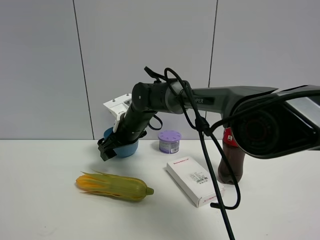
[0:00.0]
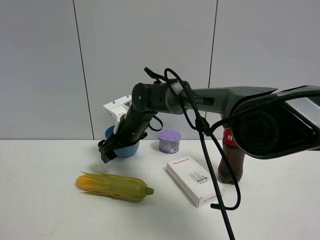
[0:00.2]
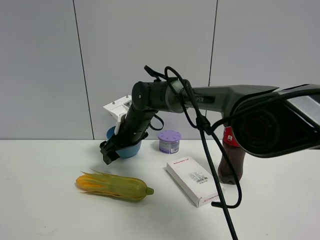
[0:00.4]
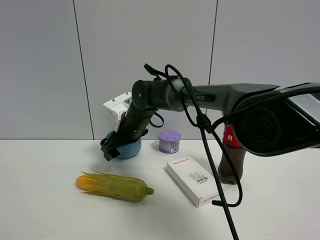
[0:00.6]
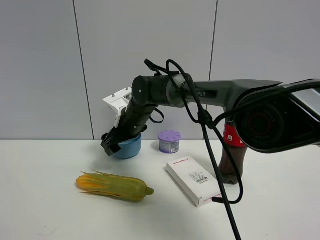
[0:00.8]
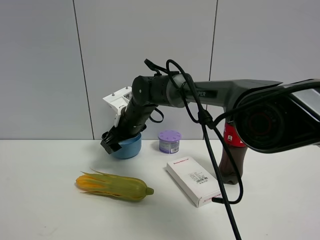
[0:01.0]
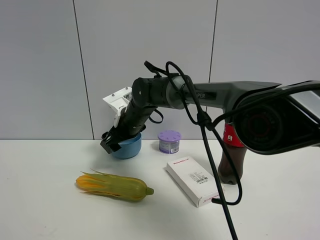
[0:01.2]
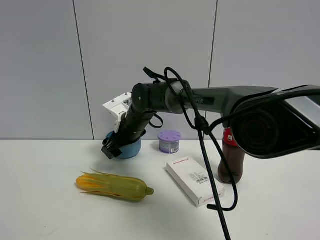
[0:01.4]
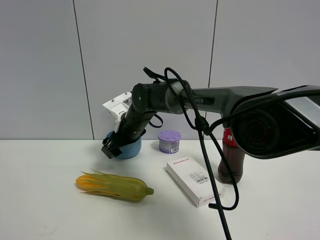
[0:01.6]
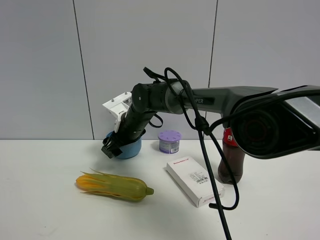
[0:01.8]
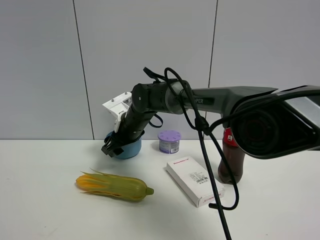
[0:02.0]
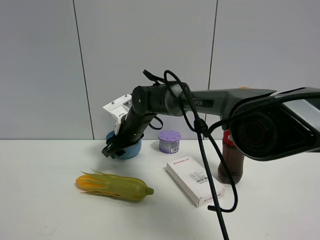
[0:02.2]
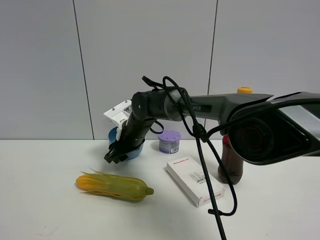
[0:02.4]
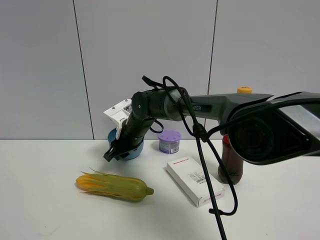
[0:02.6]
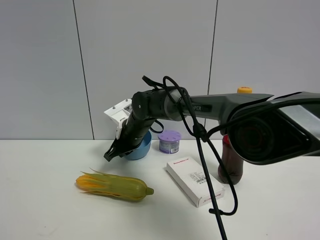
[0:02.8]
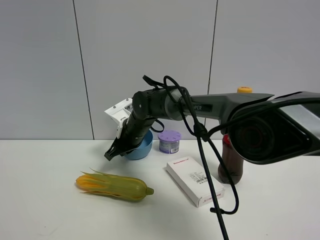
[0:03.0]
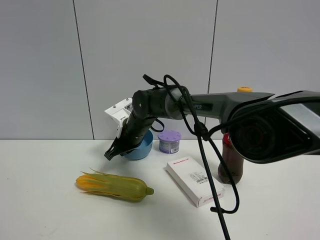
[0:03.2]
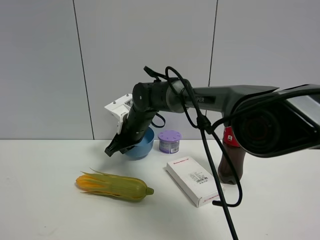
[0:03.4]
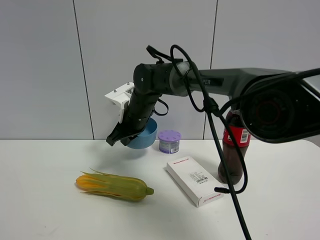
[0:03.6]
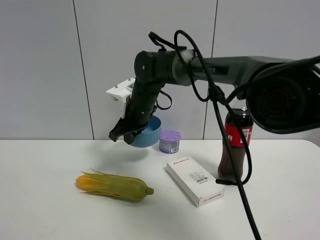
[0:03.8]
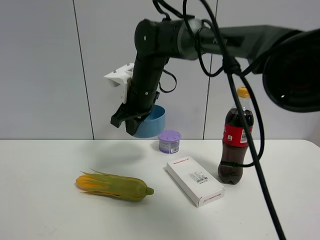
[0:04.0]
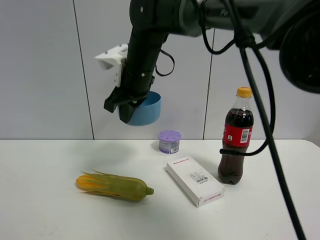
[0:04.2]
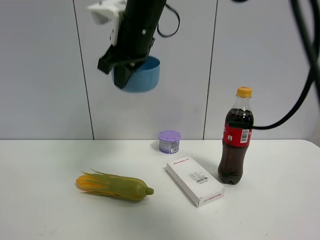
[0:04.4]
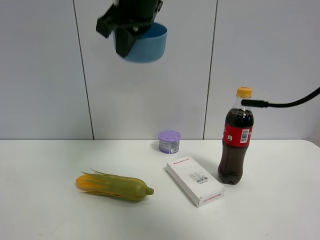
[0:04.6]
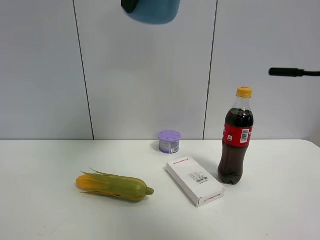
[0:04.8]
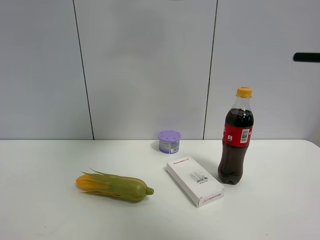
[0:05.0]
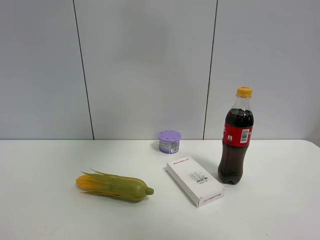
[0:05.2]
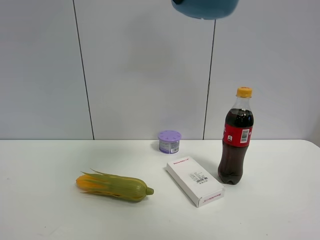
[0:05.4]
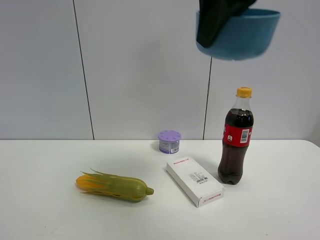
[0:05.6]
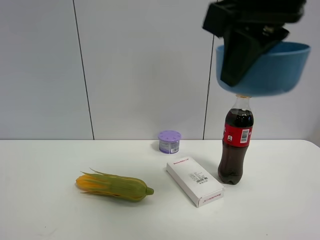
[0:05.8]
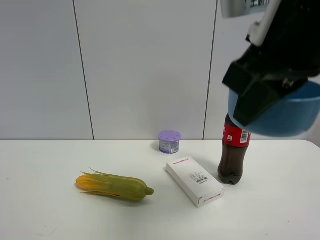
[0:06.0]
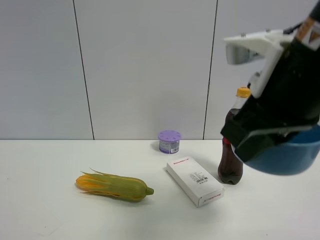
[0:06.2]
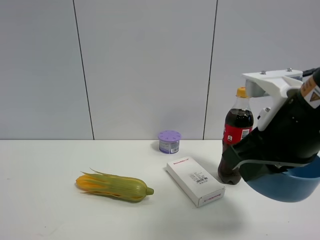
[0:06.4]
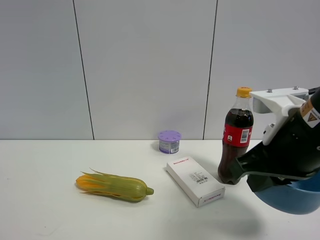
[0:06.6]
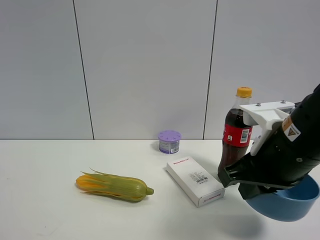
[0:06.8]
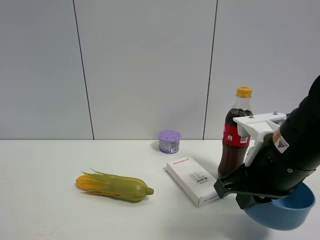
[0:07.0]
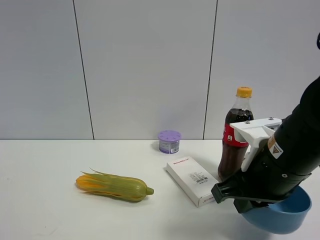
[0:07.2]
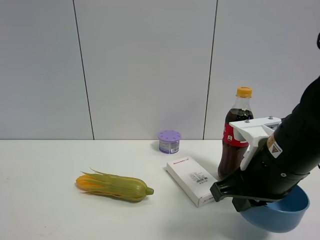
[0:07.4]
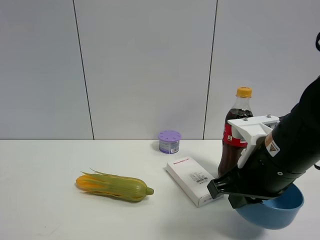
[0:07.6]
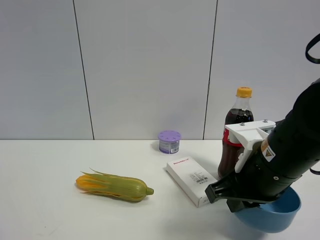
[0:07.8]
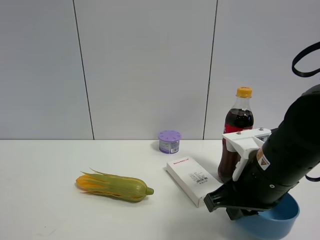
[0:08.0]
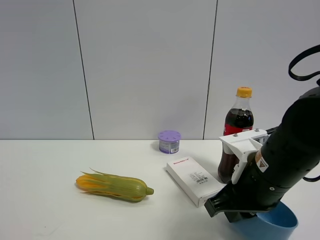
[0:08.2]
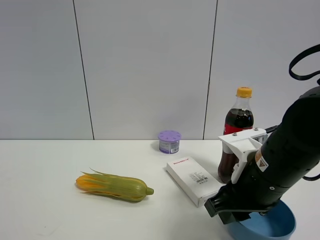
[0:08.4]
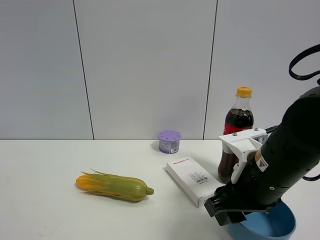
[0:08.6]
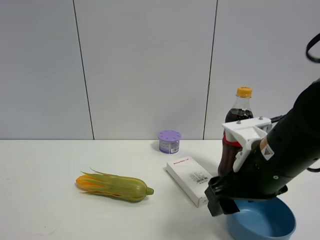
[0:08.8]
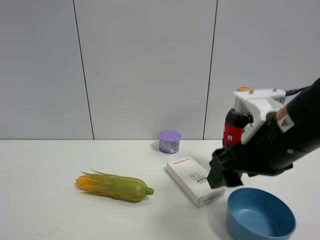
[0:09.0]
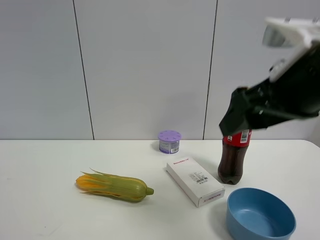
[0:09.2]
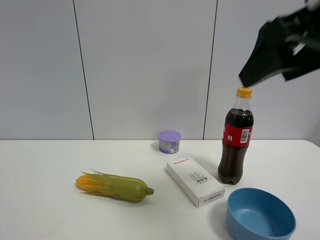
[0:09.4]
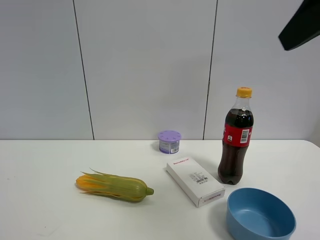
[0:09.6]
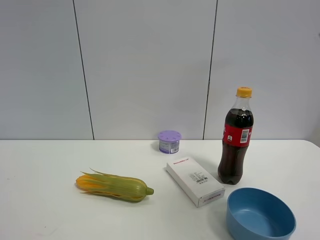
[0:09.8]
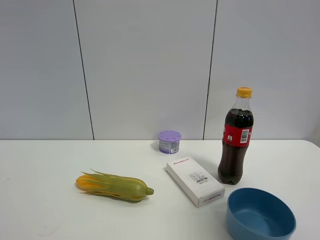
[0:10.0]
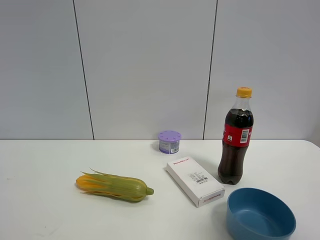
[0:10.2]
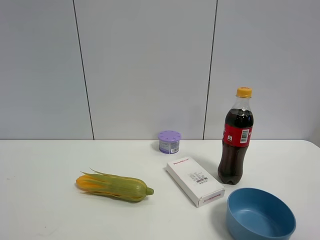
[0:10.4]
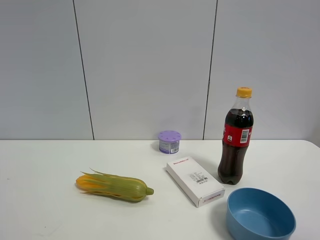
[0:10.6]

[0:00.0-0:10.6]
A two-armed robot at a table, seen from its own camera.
Task of the whole recording: the gripper move the object.
Step, 0:02.0 to 0:09.0: Place the blue bowl on the table with the right gripper.
0:00.0 to 0:01.6: The grippers move only a little.
0:01.6 to 0:03.0: The right gripper closes its fingers.
0:03.0 to 0:04.6: The right gripper heads upward and backward, covering about 30 cm.
0:04.6 to 0:06.0: The right gripper travels backward, to the right and downward by roughly 25 cm.
0:06.0 to 0:07.6: The right gripper shifts about 15 cm downward.
0:07.6 to 0:09.0: The right gripper heads upward, covering about 5 cm, and opens.
0:09.0 to 0:10.6: The right gripper shifts some 25 cm backward and to the right.

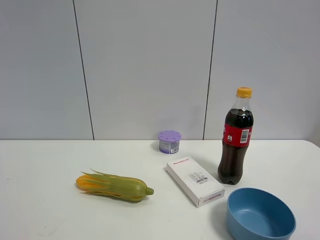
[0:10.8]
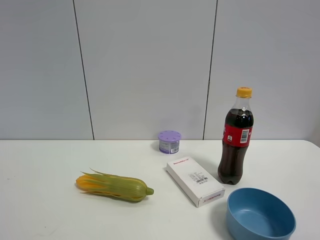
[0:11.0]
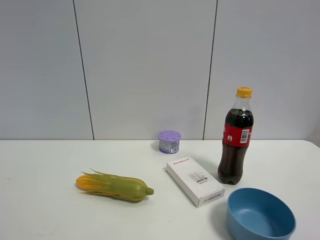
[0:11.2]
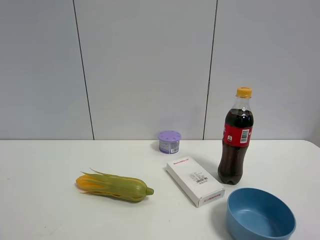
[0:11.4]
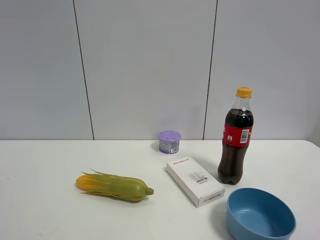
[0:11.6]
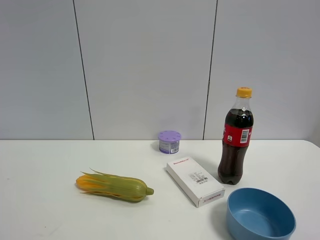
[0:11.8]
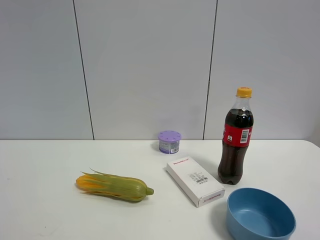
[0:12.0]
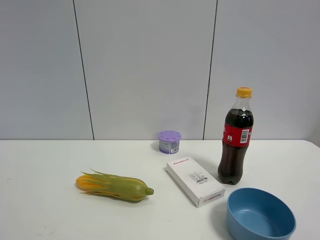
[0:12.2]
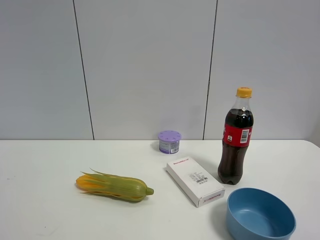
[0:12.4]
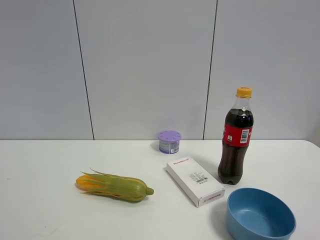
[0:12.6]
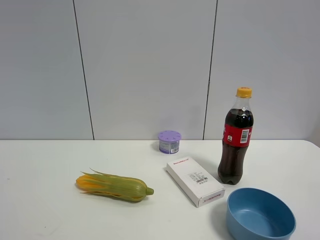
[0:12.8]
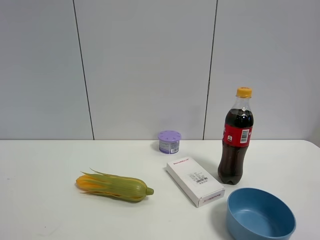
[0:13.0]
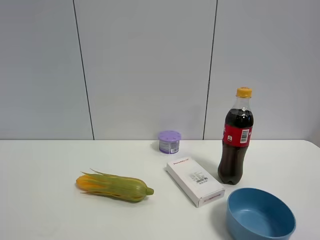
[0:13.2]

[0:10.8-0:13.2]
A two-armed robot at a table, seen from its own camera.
Task of the whole recording: the gripper move the object.
0:12.0 to 0:13.2: Neither gripper changes place.

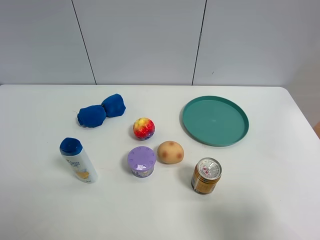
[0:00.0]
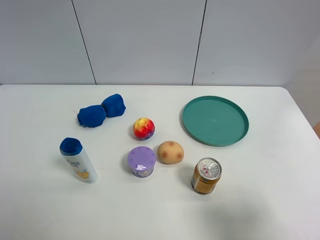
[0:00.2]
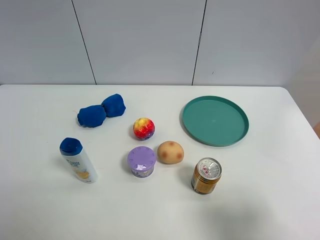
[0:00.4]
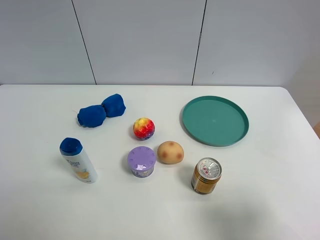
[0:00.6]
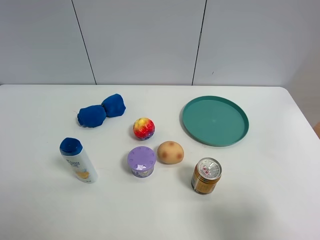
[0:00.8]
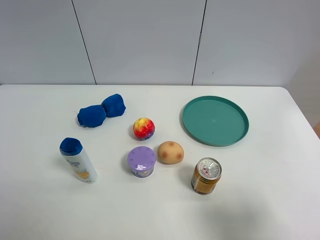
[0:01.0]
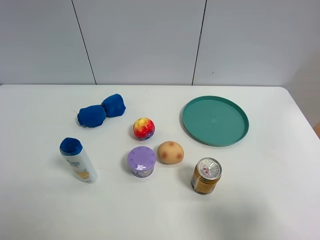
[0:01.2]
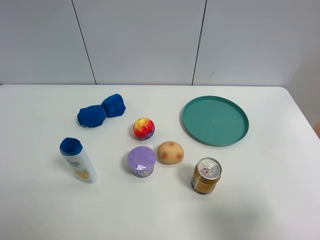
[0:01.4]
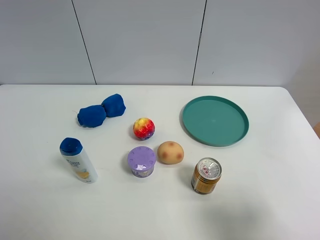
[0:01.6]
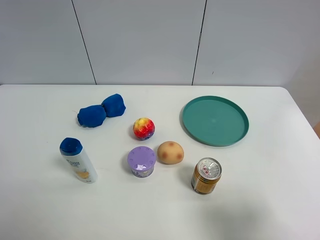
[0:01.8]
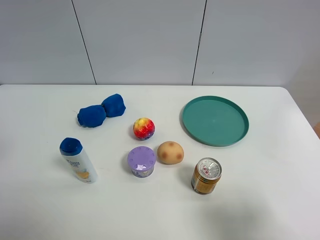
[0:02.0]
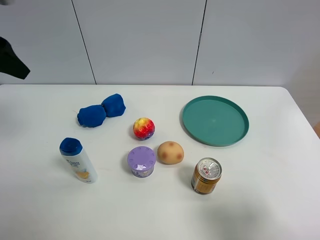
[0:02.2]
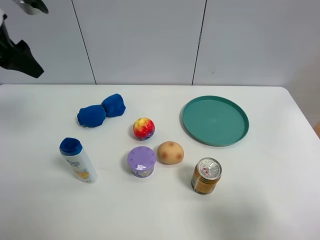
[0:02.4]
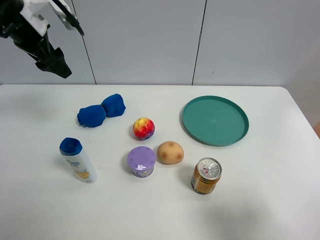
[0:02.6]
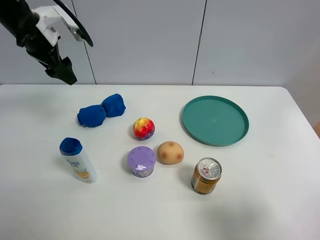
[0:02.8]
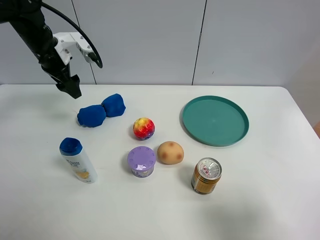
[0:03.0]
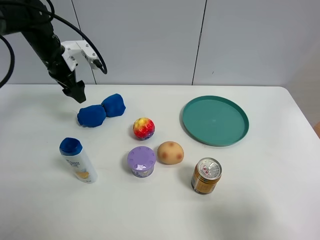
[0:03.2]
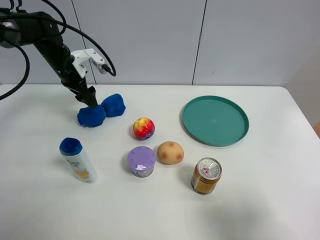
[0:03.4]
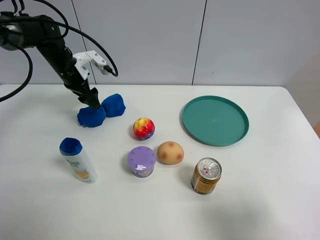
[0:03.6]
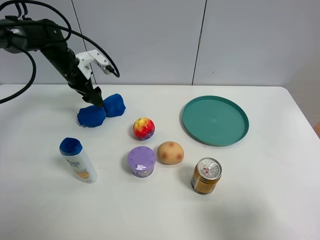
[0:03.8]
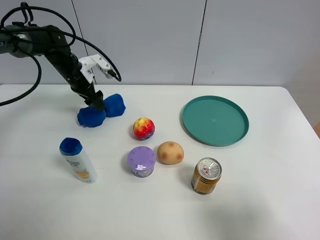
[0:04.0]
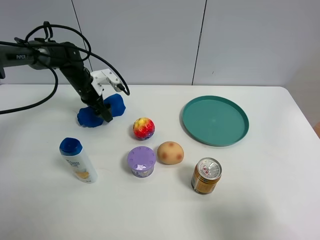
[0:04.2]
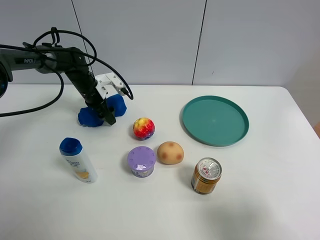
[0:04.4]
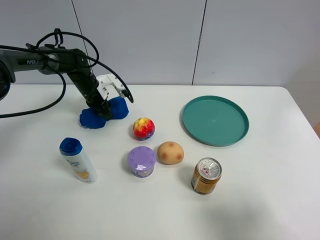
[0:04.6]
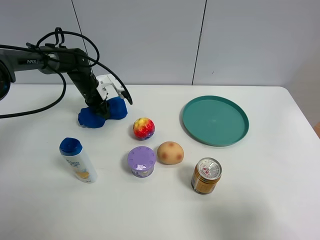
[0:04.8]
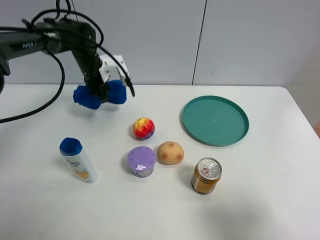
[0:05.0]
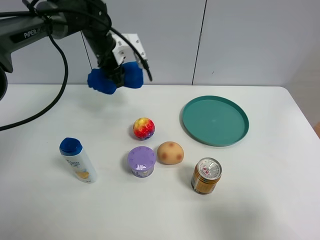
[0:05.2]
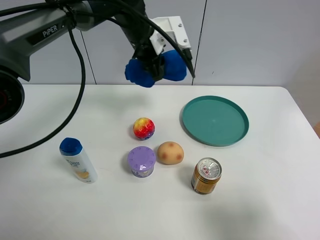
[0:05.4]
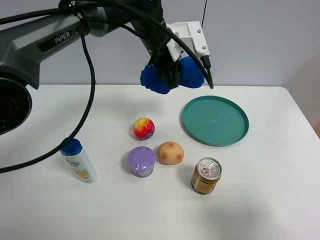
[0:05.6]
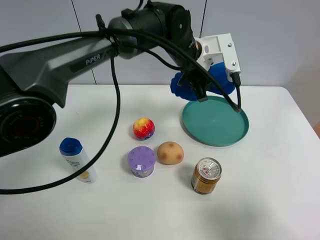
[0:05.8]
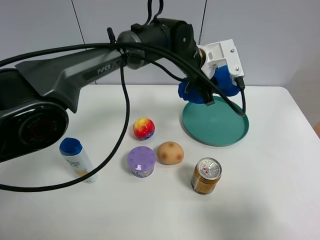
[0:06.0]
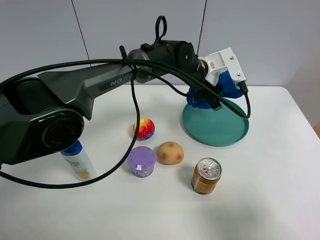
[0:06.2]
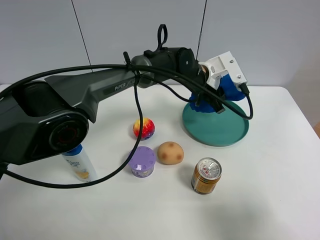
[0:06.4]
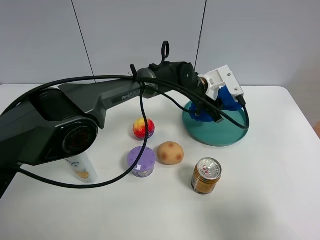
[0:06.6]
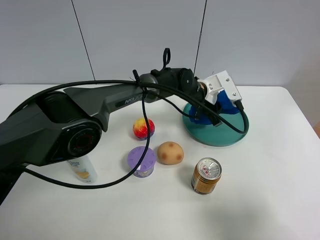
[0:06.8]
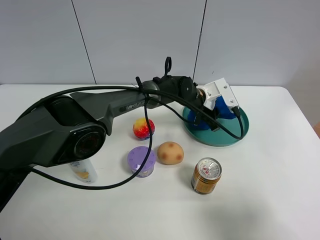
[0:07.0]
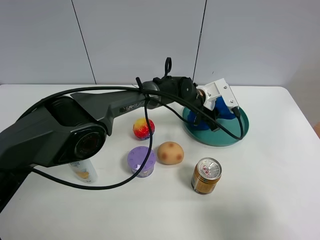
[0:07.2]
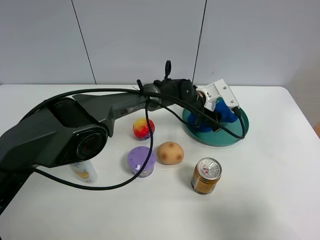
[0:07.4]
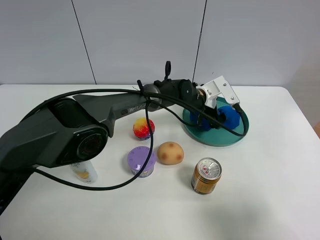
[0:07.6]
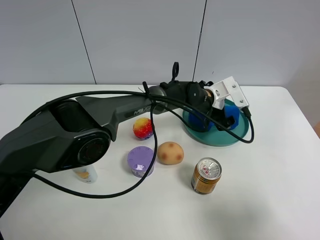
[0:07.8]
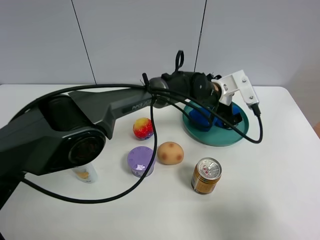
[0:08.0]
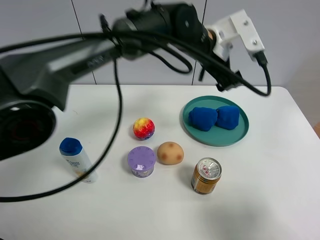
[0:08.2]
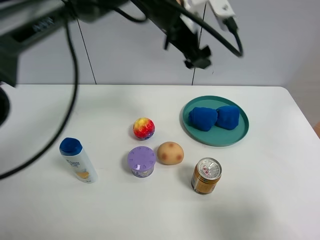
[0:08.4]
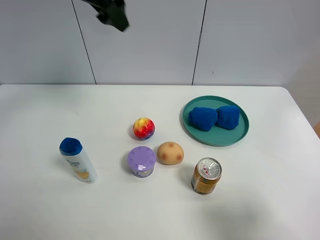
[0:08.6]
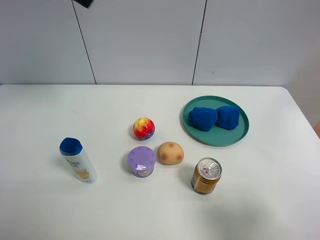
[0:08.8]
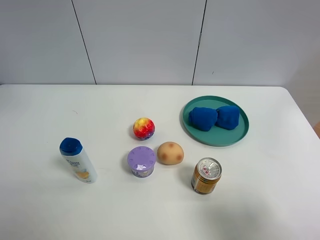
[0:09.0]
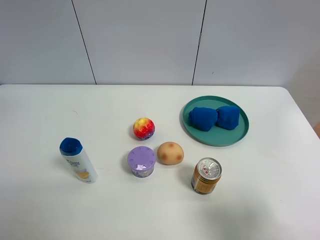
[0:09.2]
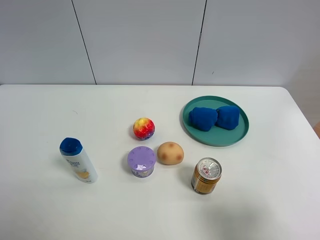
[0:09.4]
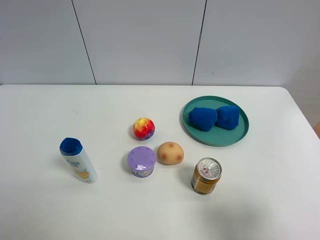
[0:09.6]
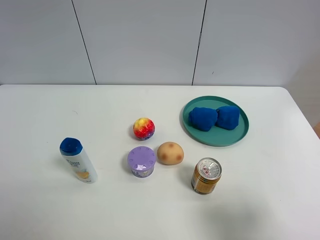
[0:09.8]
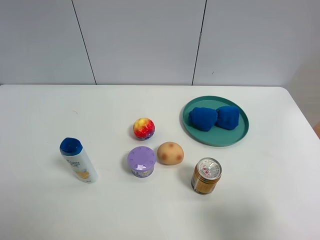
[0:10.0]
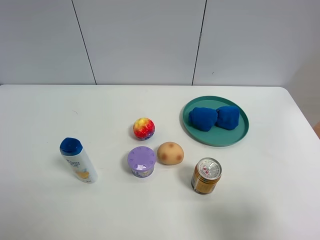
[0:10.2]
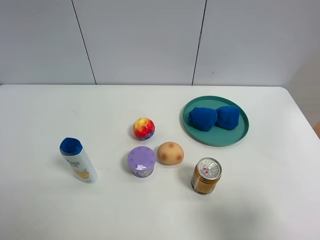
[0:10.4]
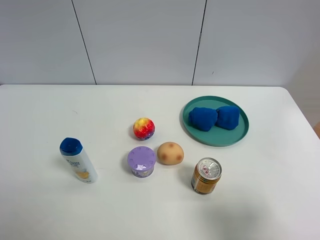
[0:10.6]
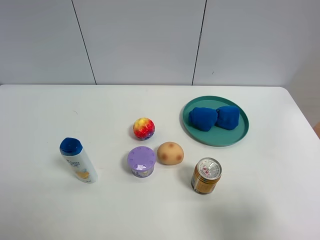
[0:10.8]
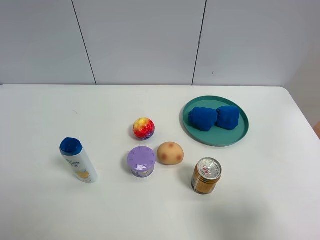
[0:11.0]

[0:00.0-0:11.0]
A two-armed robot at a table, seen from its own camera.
Task of the whole recording: the gripper move the object.
Step, 0:00.0 to 0:04.6: Grasp the blue towel with the left gripper.
Step, 0:04.8 to 0:07.8: Place the blue towel into the green plate with the left gripper.
0:01.6 to 0:03.2: The left gripper travels forward by roughly 40 cm.
0:03.2 to 0:04.8: The left gripper is displaced downward by about 15 cm, and closes its fingers.
0:04.8 to 0:06.2: The left gripper goes about 30 cm to the right.
0:06.2 to 0:07.8: The left gripper goes roughly 10 cm downward, and opens its fingers.
0:07.8 to 0:09.4: The left gripper travels to the left, upward and backward by about 60 cm.
